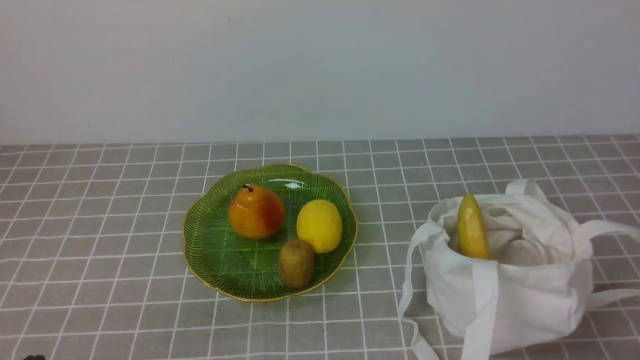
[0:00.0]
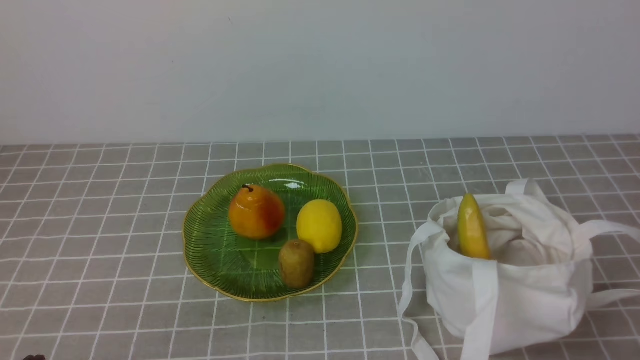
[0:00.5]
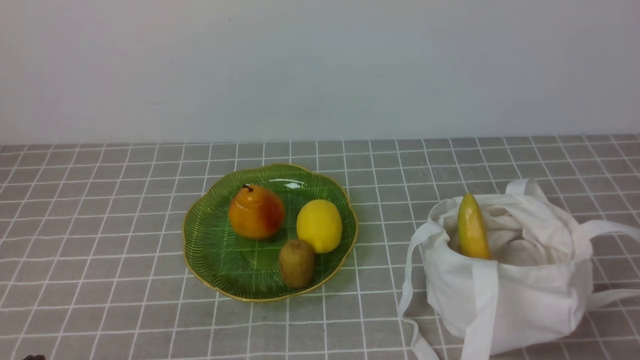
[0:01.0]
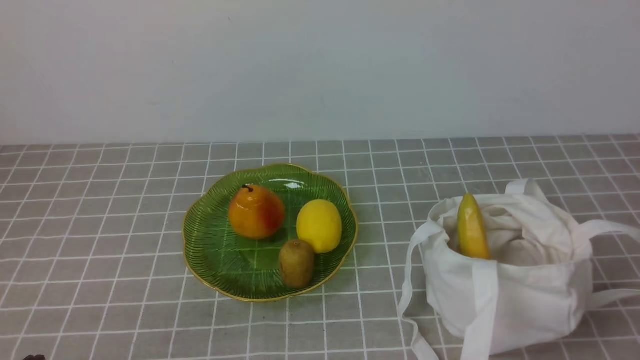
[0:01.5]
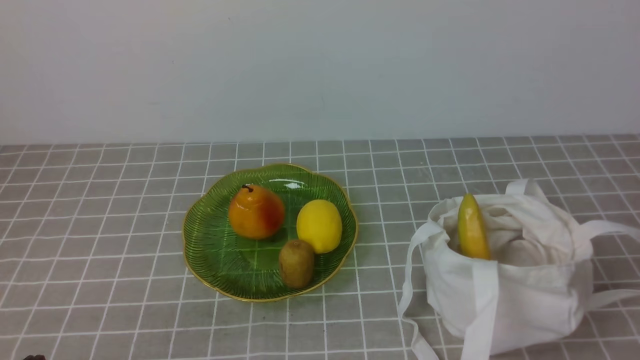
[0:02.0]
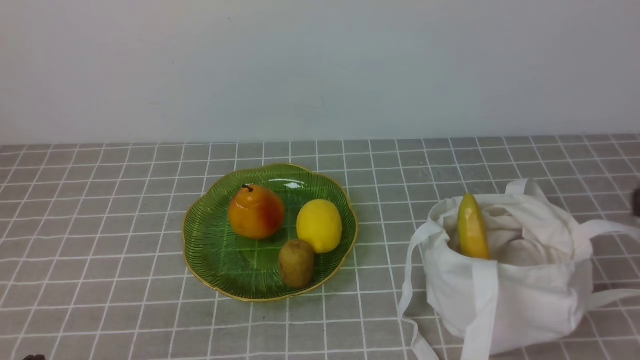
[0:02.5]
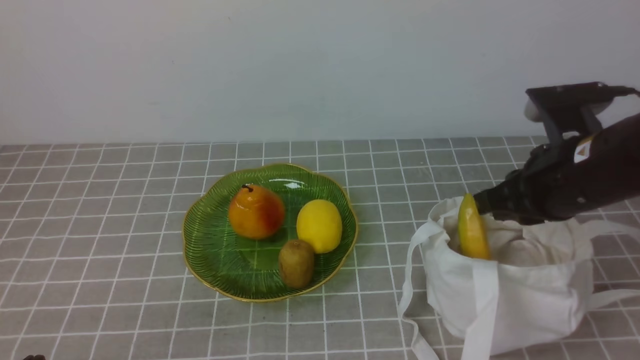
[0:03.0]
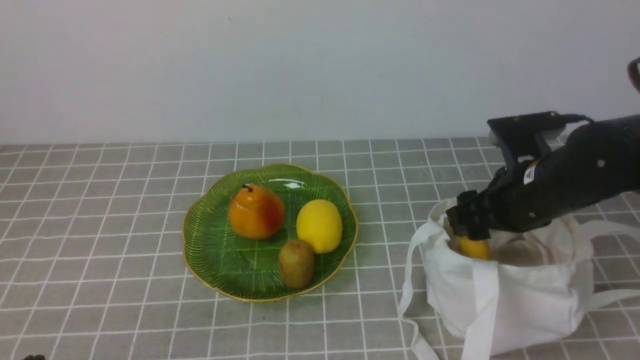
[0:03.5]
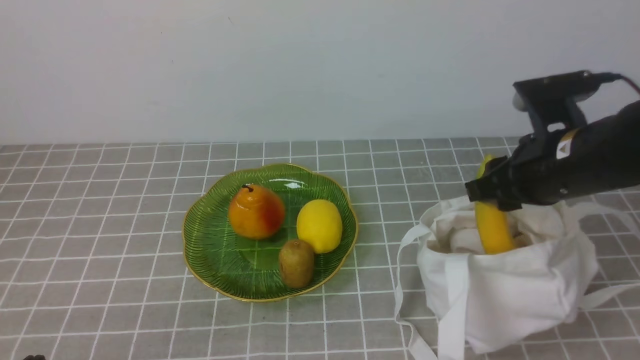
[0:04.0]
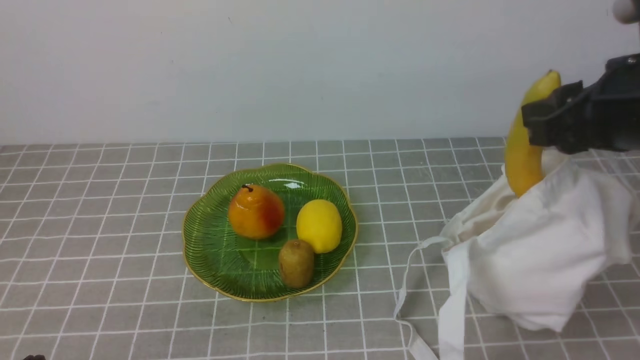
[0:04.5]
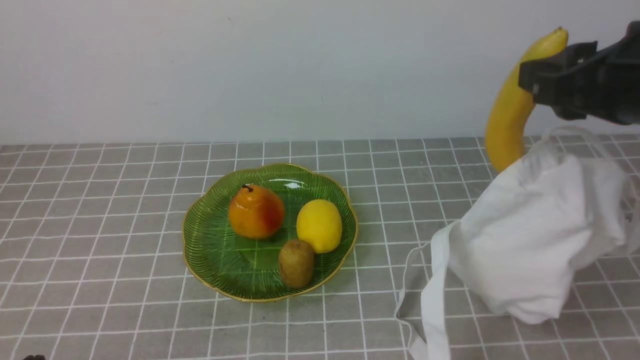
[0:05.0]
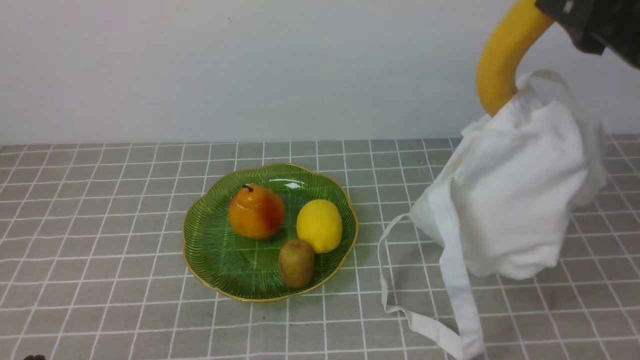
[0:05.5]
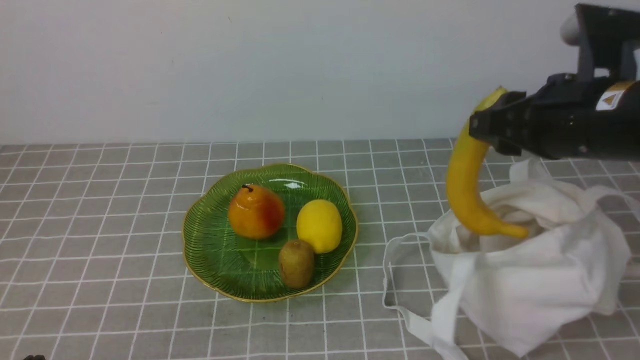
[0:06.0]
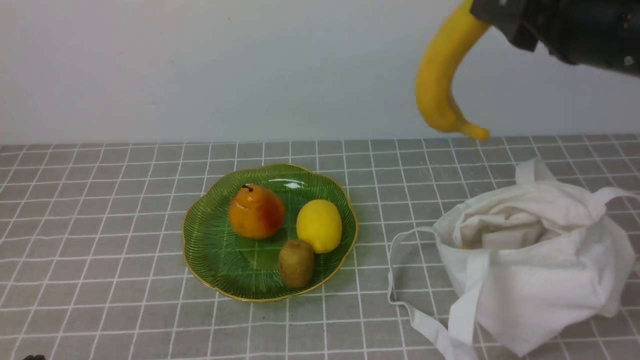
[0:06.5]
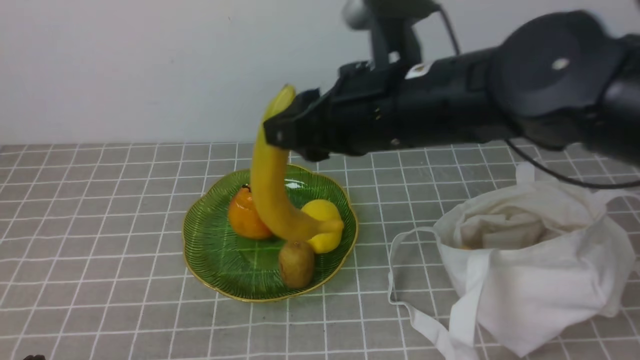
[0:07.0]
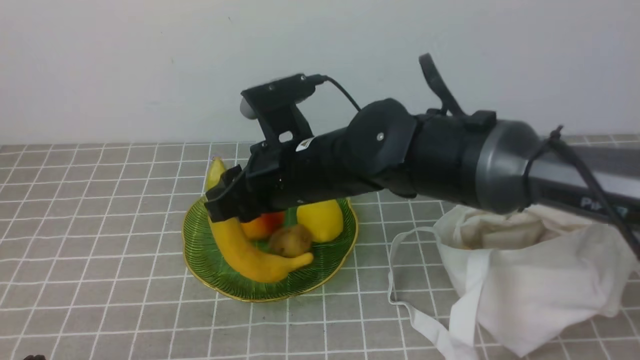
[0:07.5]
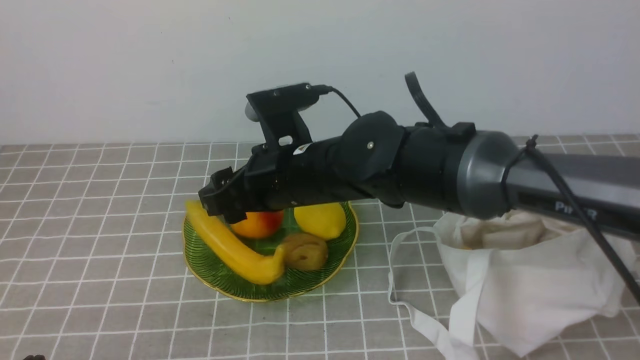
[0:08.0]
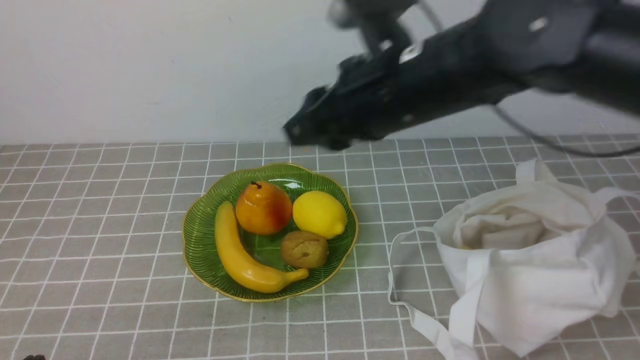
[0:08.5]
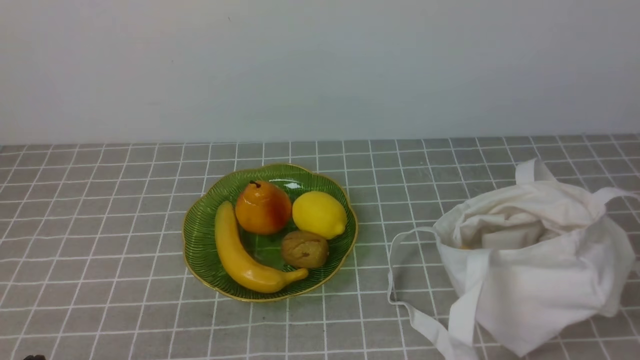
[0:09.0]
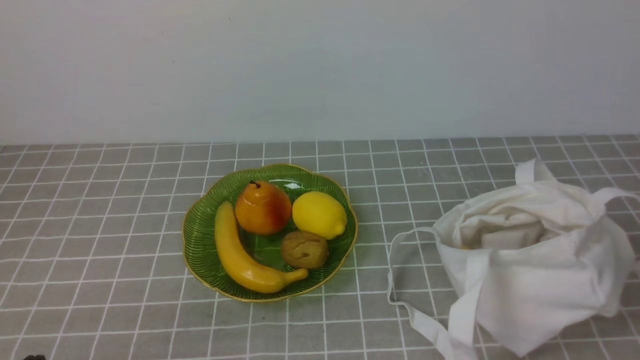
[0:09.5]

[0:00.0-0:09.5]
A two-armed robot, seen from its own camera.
Step, 0:00.0 to 0:03.5: use the right arm to grab a banana from the bag.
Step, 0:04.0 to 0:08.0: use the right arm to put the banana into the empty plate on the right.
0:02.0 to 0:04.0: The right gripper goes roughly 25 cm forward, and opens its fingers.
0:04.0 to 0:05.5: The right gripper moves upward and backward, some 15 cm.
0:05.5 to 0:07.5: The right gripper shifts about 25 cm to the left and downward.
0:07.5 to 0:09.5: The right gripper moves to the right and backward, roughly 50 cm, and closes up.

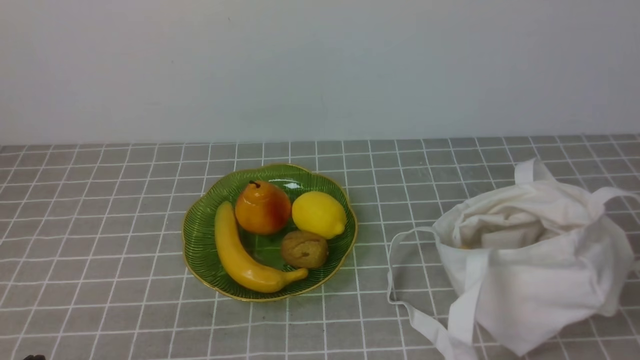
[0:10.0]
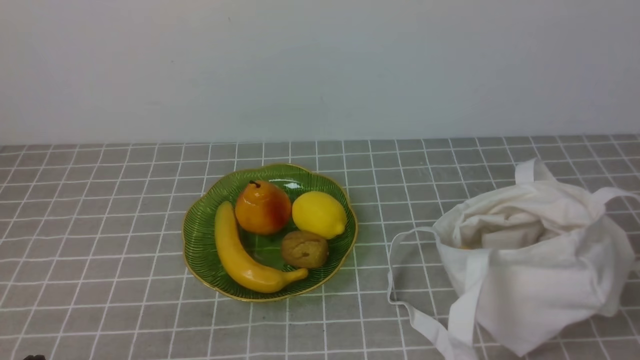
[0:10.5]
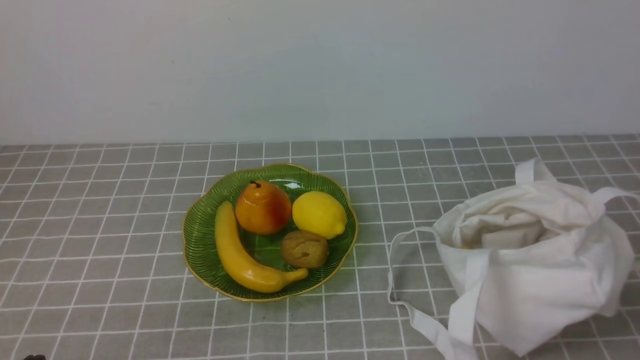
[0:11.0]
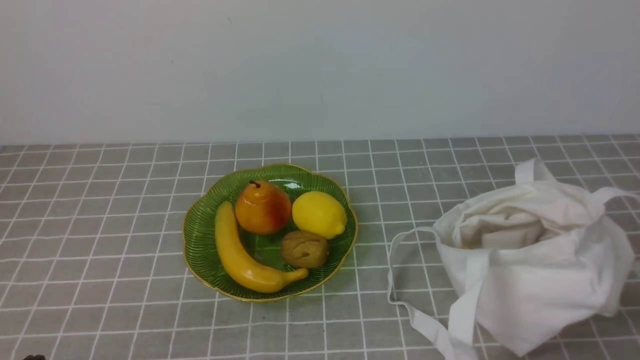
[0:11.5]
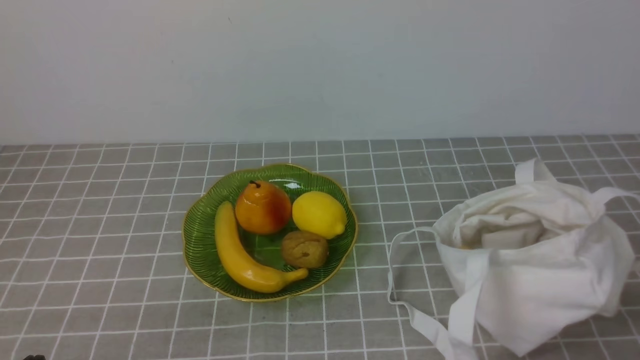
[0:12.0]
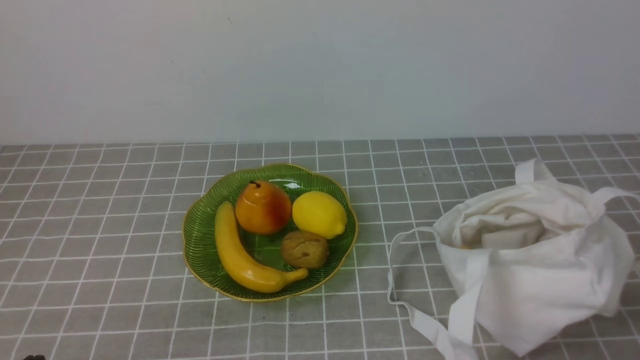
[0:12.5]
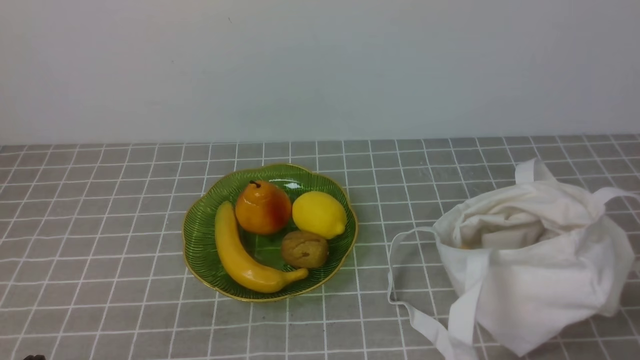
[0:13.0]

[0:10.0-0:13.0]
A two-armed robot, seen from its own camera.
0:11.5 to 0:13.0: Neither gripper changes place.
